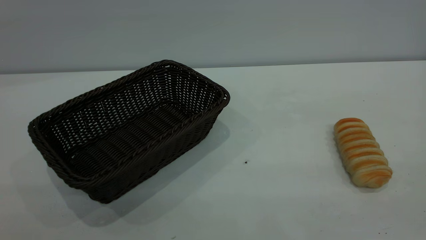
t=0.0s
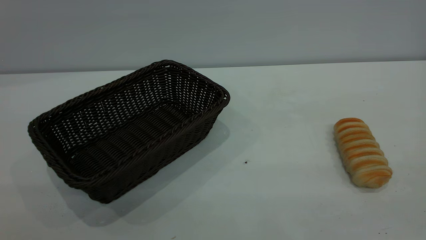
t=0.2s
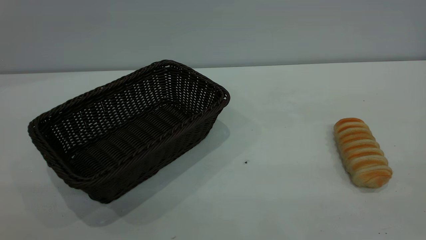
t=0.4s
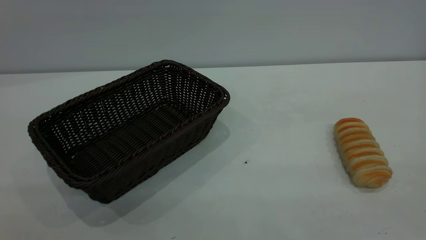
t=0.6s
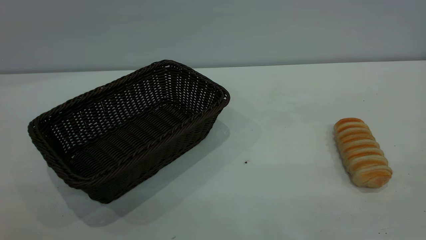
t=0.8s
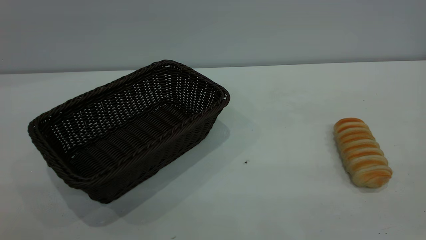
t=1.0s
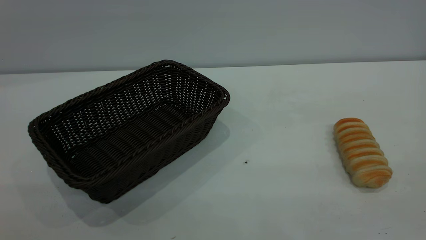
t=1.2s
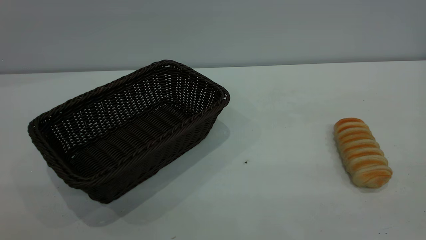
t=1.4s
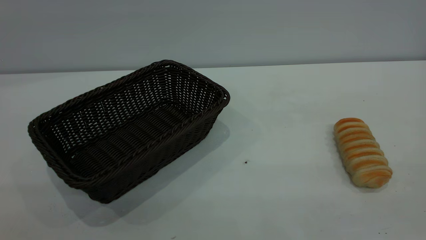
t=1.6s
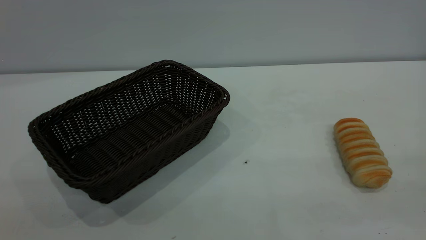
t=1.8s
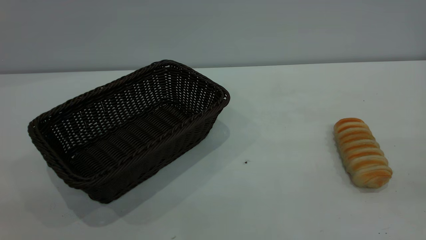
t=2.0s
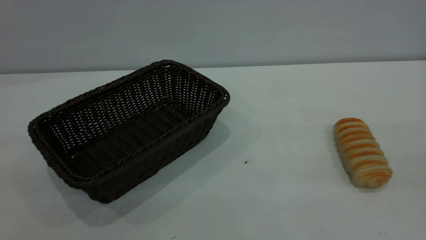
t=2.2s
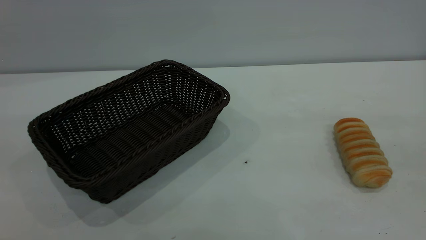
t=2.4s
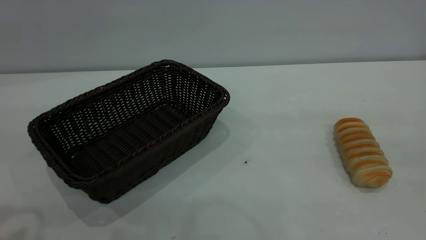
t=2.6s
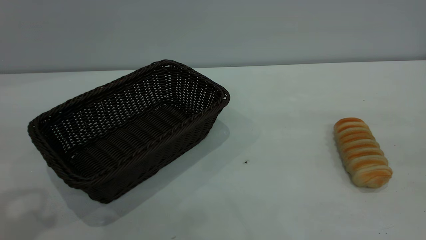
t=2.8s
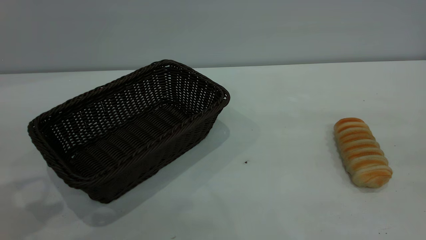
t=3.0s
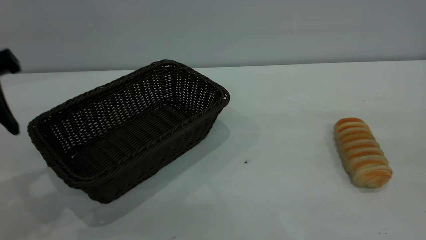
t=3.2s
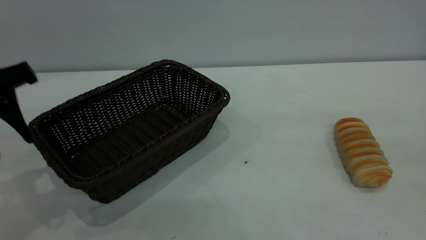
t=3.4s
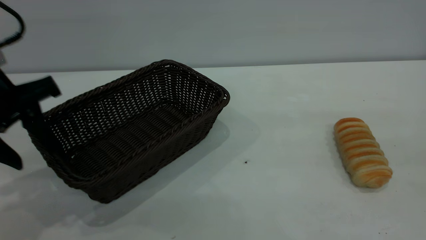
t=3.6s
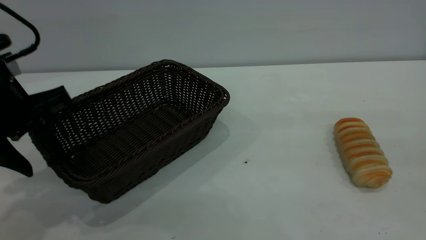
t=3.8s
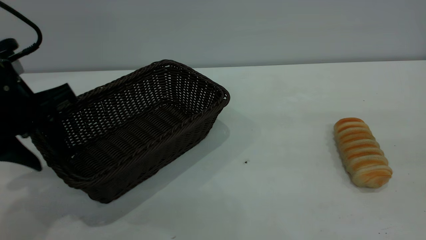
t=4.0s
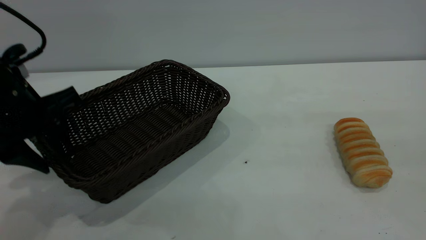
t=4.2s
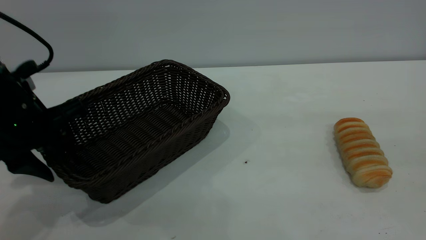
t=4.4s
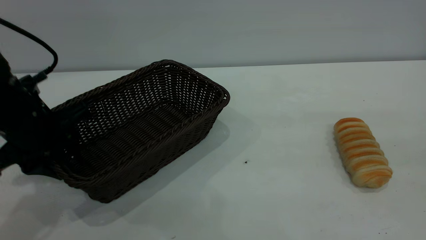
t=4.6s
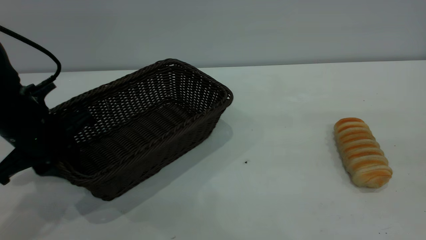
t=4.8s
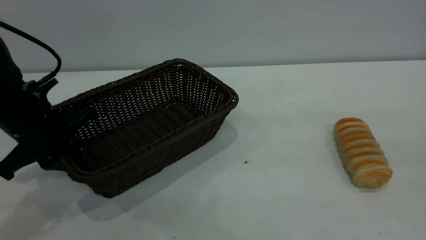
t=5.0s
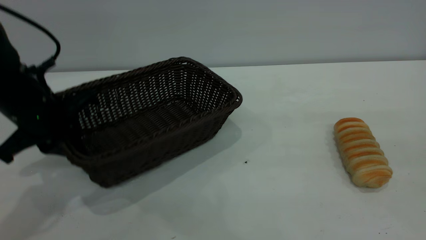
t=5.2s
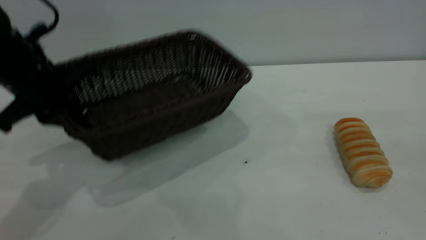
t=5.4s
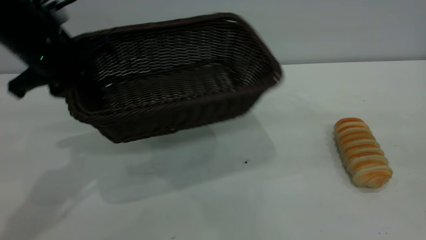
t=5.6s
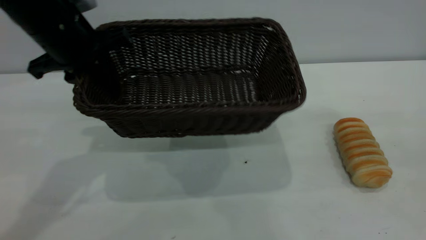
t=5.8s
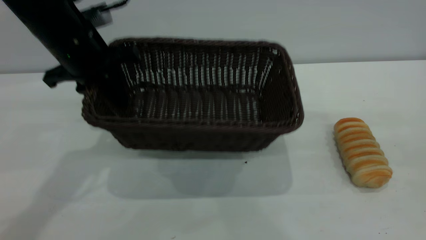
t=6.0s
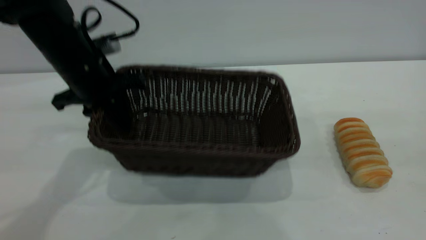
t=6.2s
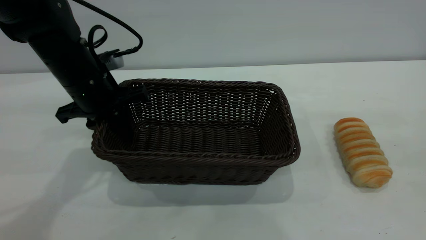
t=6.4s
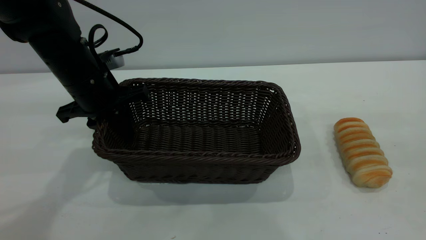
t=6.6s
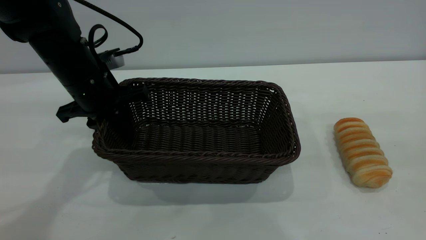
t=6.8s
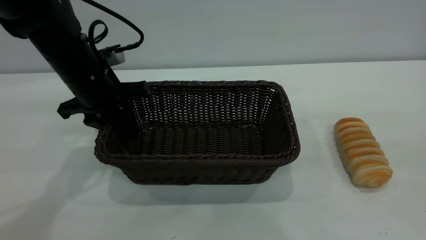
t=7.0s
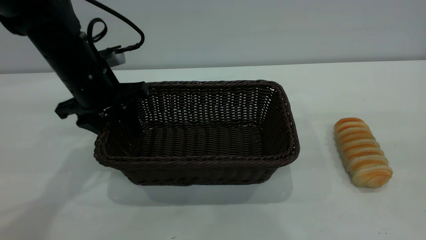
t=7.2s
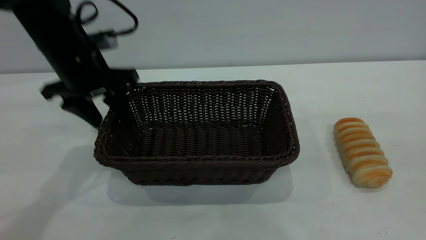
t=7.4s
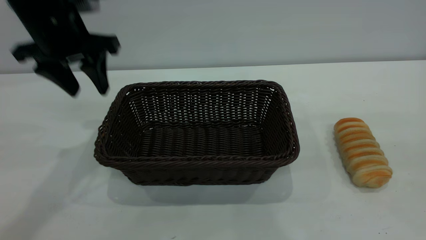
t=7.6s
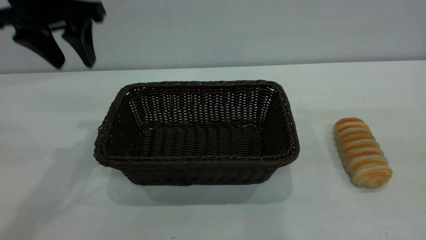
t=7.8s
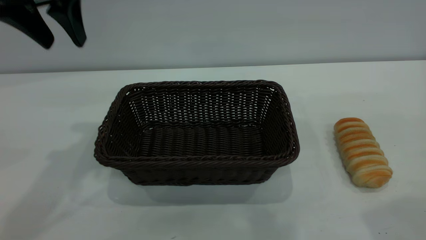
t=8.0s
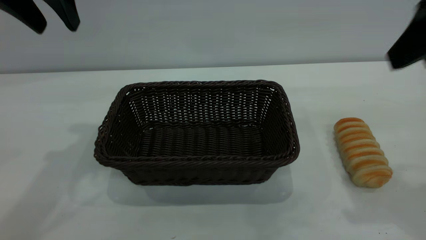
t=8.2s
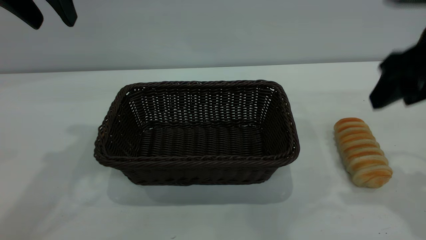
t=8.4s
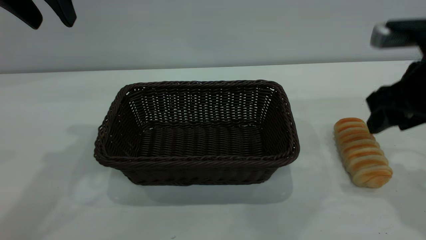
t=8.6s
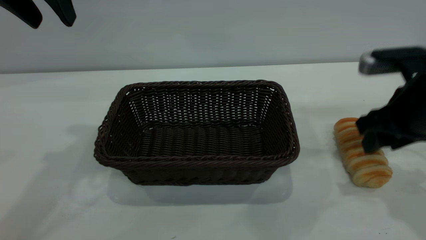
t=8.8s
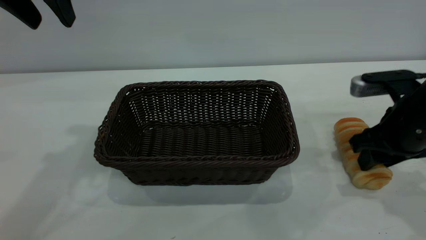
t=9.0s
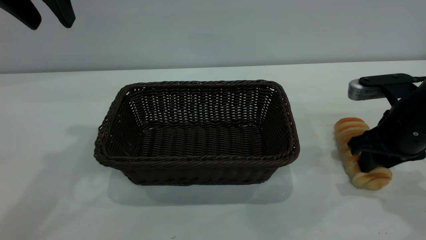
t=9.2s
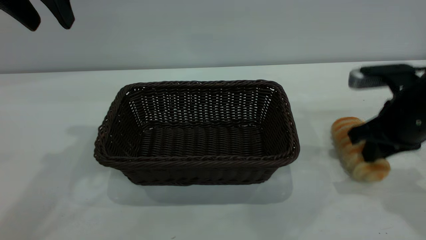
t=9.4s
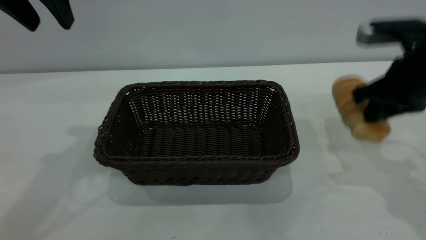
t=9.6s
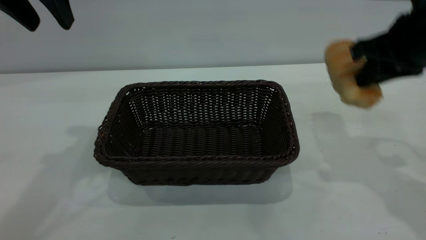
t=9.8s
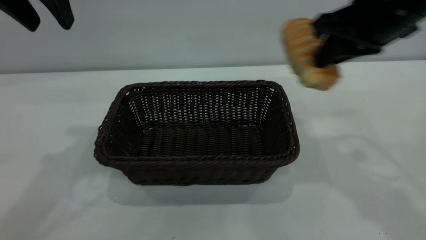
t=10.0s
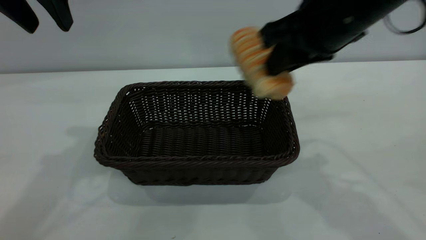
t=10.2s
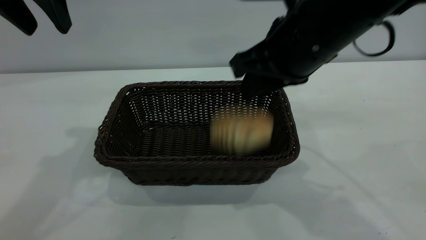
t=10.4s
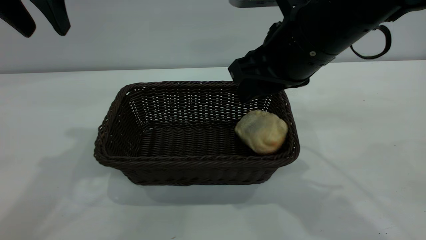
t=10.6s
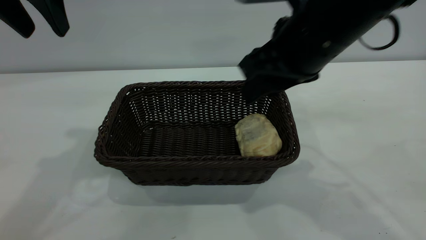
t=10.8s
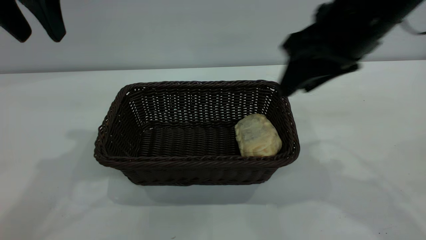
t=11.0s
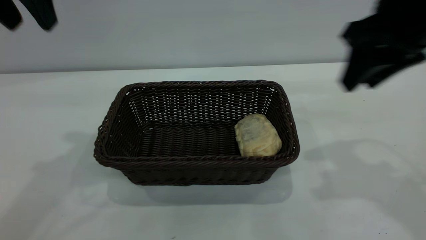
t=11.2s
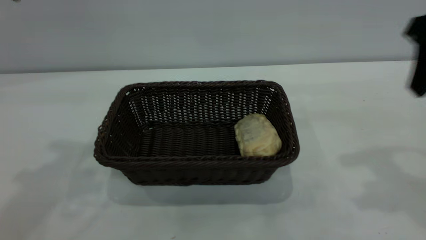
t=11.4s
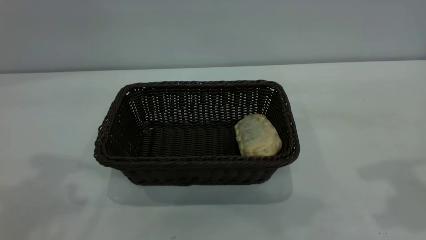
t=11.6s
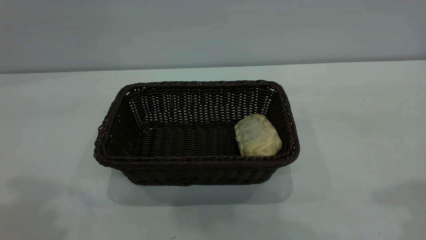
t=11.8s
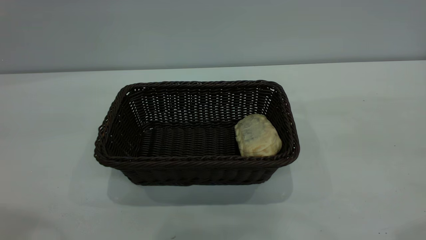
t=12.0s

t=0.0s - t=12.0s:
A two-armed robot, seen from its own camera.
Task of the whole recording: One hand grasps the black basket and places it in the middle of the table, while the other hand picks up the long bread and puts it into the black basket.
Step, t=0.0s - t=7.4s: Move the basket to the center of view.
Step, t=9.8s - t=11.0s: place the bread into the basket.
t=0.0s - t=1.6s: Neither gripper changes place.
t=3.0s - t=4.4s: The left gripper goes about 10 cm downward and forward.
t=4.4s - t=6.0s: The left gripper shifts roughly 10 cm forward and to the right, and closes its fingers.
t=6.0s - t=7.6s: The left gripper heads upward, covering approximately 5 cm, and opens up.
t=7.6s - t=9.0s: The right gripper travels downward and forward by some 30 cm, while the left gripper travels upward by some 10 cm.
t=9.0s - t=10.4s: The right gripper goes about 20 cm to the left and upward, and closes.
t=10.4s - t=12.0s: The right gripper is displaced to the right, backward and upward by roughly 30 cm; the left gripper travels backward and upward by some 20 cm.
